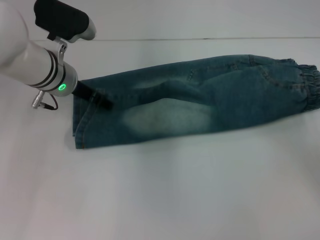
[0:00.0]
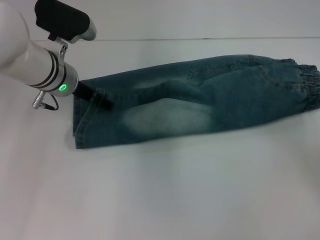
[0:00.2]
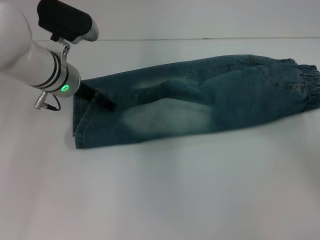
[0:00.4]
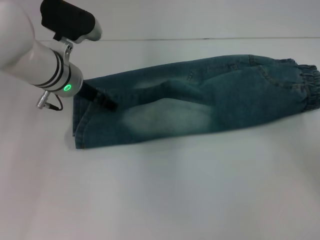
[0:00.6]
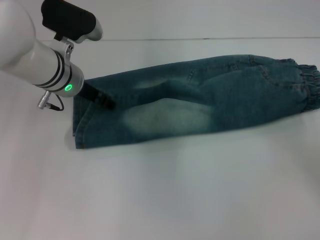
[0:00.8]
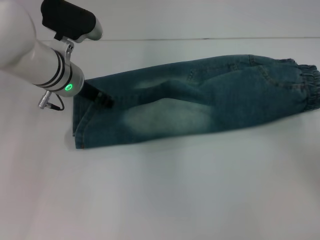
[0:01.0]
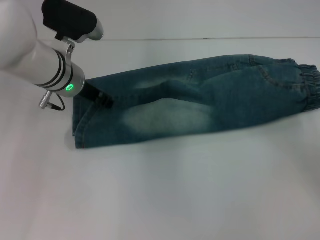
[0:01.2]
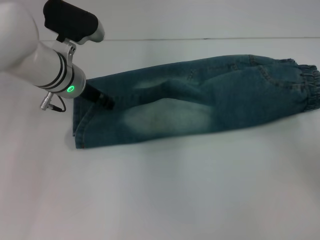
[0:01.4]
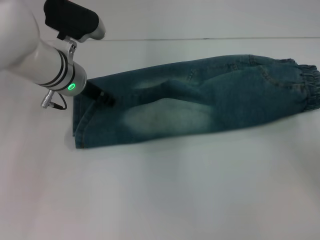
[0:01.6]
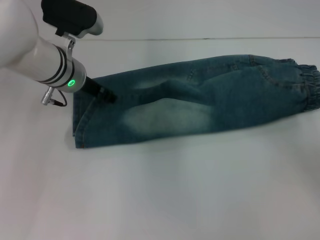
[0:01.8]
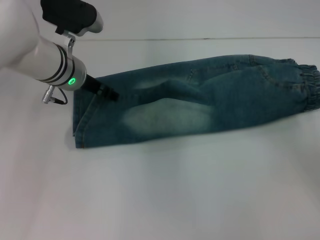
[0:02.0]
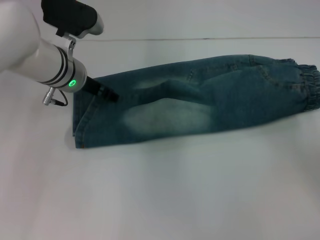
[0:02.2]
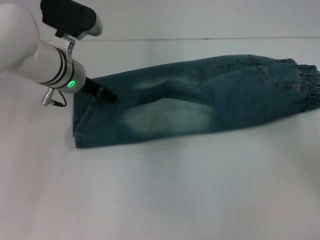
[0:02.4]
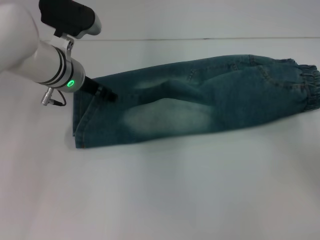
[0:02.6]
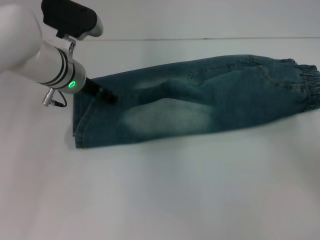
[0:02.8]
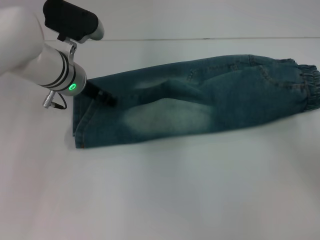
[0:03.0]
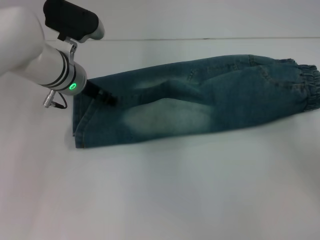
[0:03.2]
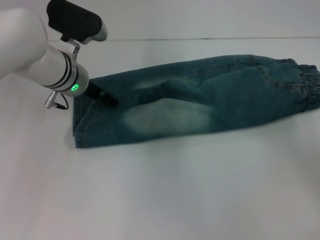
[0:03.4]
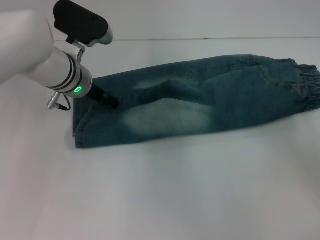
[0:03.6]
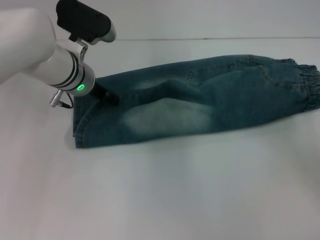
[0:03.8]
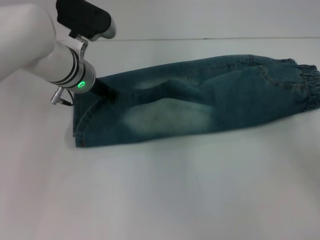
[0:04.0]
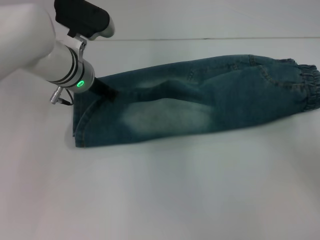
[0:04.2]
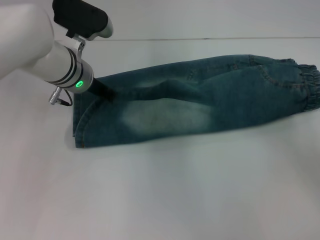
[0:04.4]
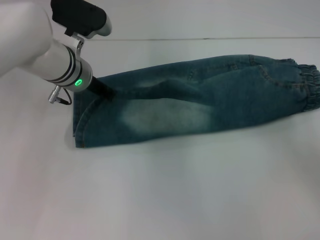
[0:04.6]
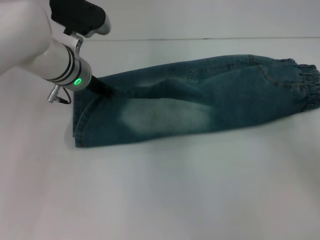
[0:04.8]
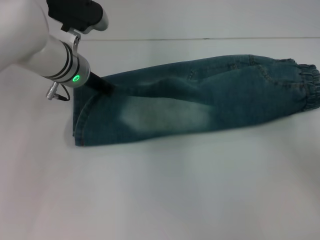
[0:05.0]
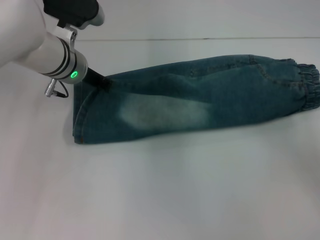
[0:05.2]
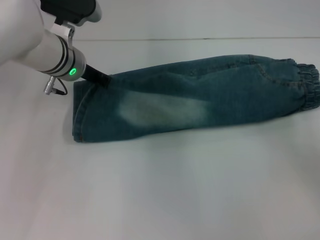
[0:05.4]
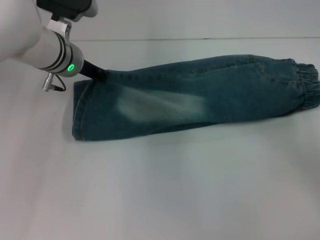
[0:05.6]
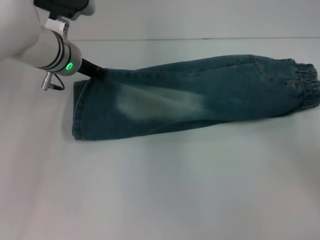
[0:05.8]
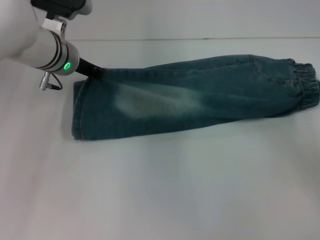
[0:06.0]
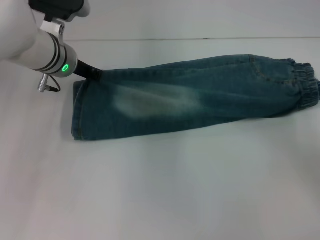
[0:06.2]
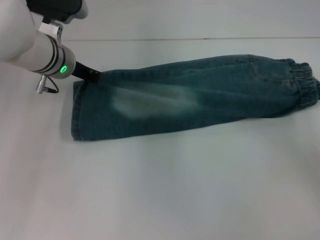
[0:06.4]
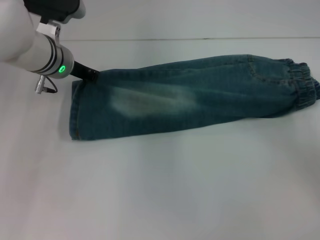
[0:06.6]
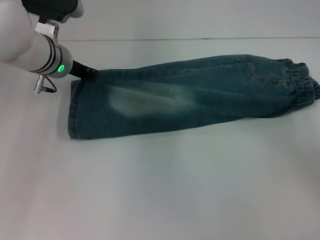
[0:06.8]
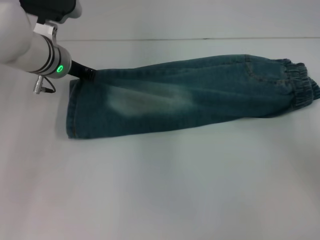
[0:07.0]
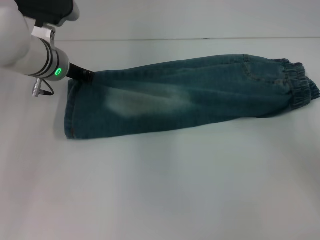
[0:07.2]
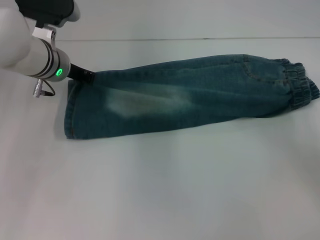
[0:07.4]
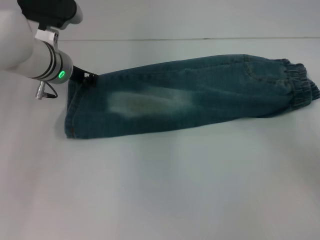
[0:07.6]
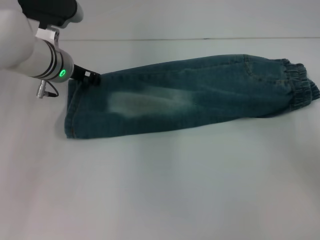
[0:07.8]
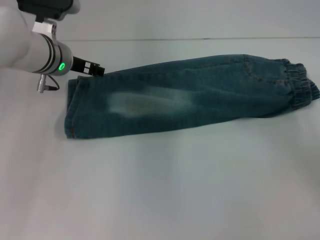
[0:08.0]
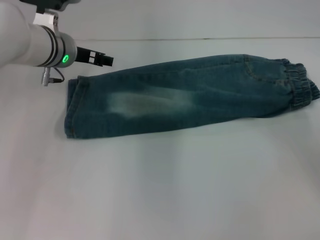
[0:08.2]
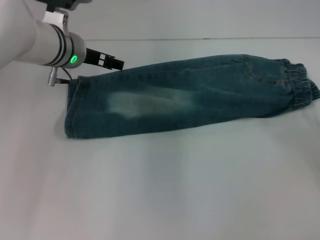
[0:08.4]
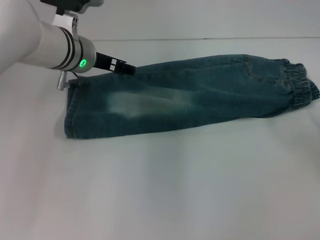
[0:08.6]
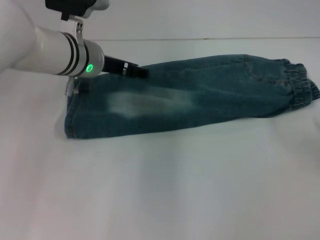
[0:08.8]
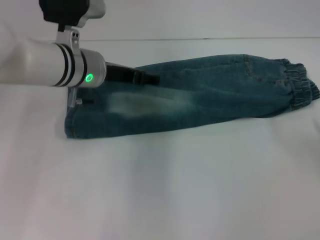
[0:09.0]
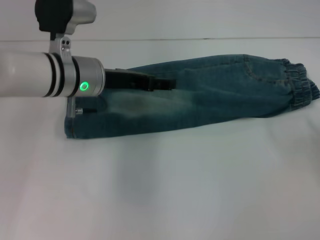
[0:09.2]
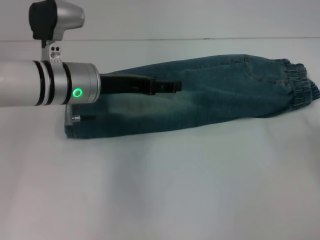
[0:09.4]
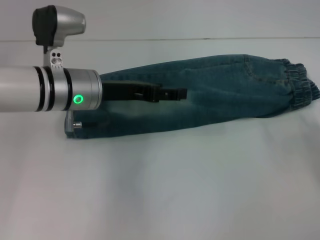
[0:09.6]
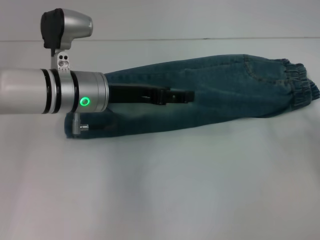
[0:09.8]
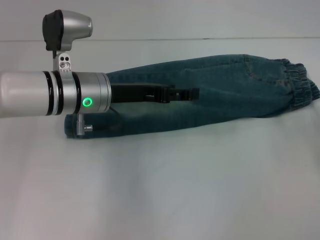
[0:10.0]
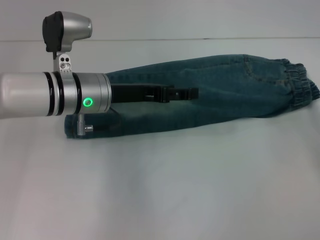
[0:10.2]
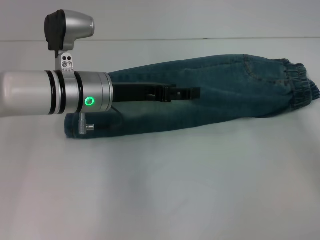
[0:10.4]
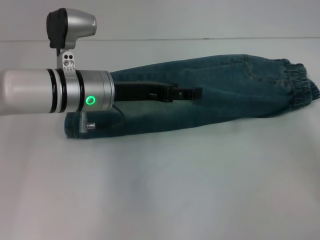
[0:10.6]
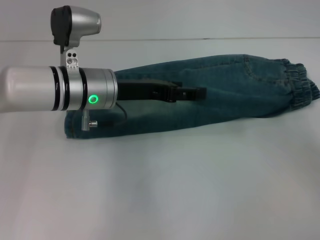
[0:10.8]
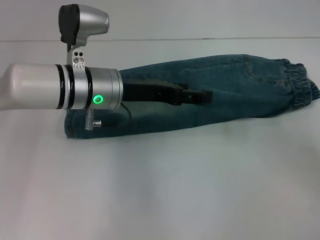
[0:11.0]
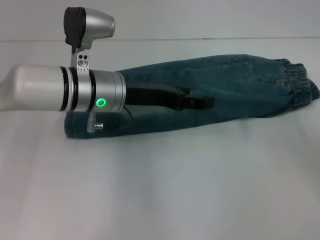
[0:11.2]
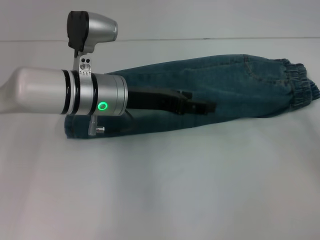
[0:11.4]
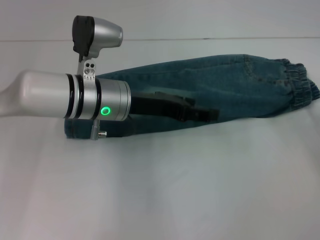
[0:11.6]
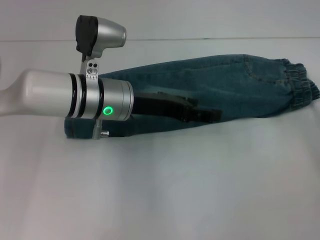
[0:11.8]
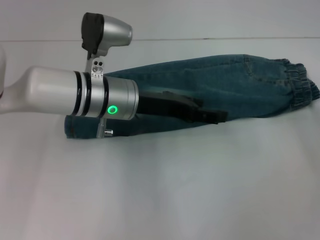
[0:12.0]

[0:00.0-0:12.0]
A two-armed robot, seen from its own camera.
Step, 0:00.0 to 0:07.6: Fold upward with your right hand.
0:00.0 to 0:01.6: The left gripper closes its fingers.
0:01.6 to 0:03.0: The two grippers keep their place.
0:03.0 to 0:04.4: The left gripper closes.
0:04.4 to 0:07.6: The grippers stay close to where they were, moving slightly.
0:07.6 to 0:09.0: The left gripper moves roughly 5 cm, and opens.

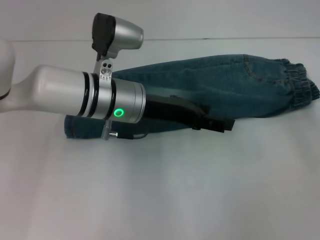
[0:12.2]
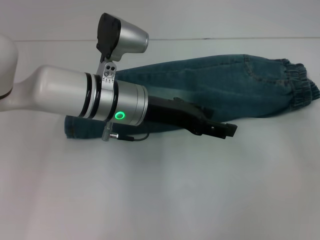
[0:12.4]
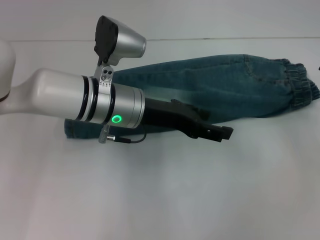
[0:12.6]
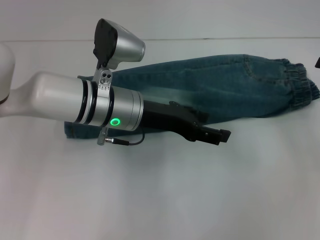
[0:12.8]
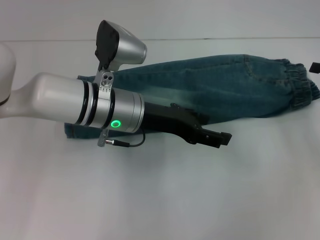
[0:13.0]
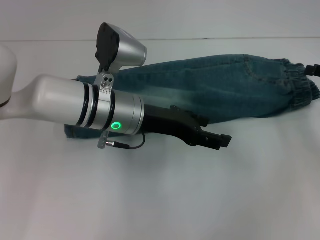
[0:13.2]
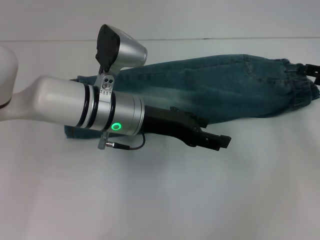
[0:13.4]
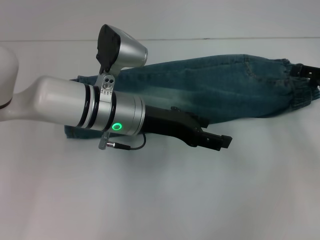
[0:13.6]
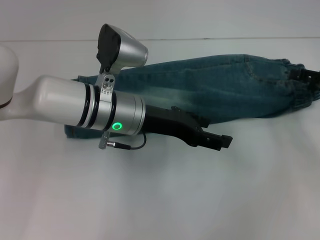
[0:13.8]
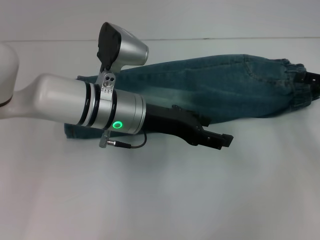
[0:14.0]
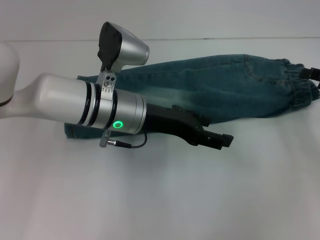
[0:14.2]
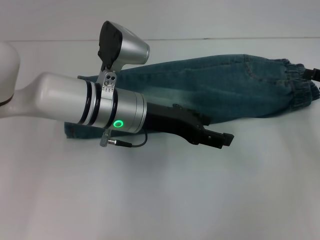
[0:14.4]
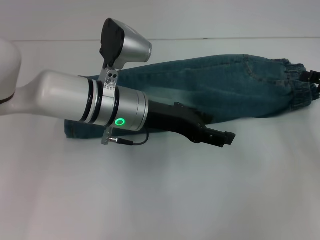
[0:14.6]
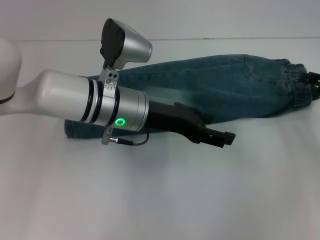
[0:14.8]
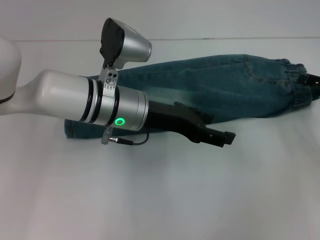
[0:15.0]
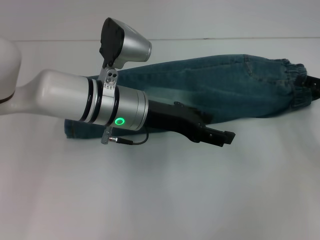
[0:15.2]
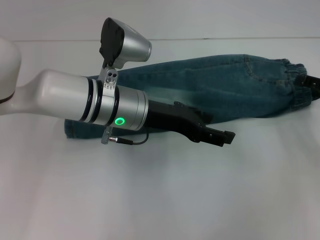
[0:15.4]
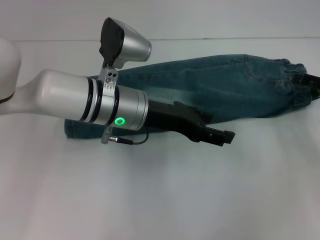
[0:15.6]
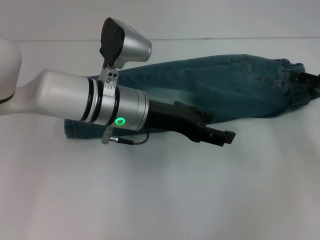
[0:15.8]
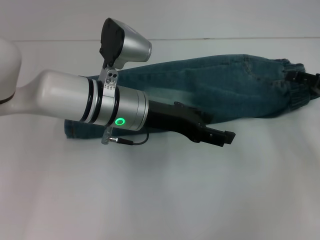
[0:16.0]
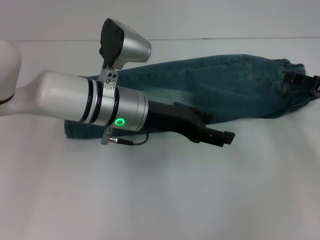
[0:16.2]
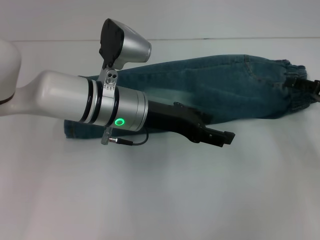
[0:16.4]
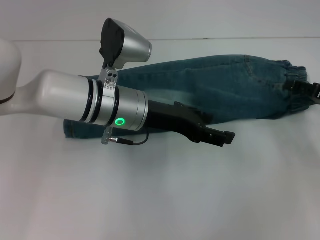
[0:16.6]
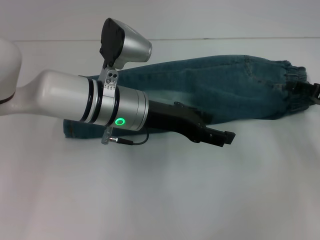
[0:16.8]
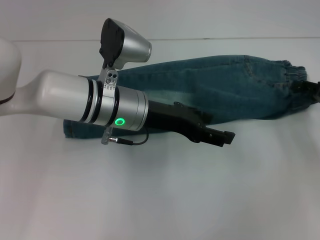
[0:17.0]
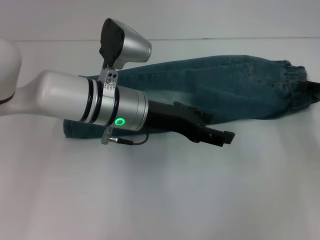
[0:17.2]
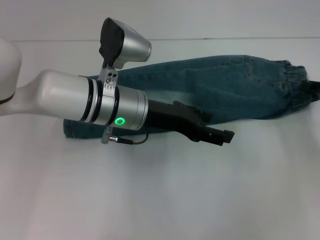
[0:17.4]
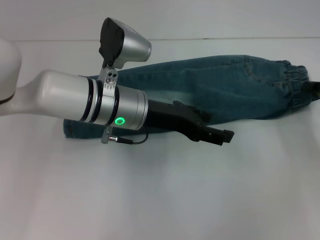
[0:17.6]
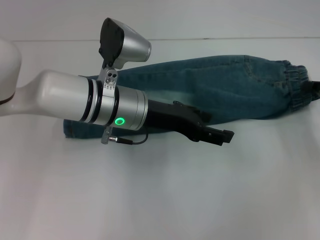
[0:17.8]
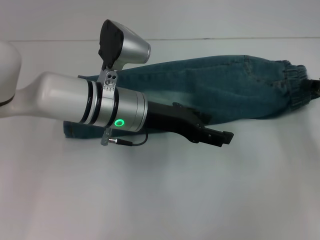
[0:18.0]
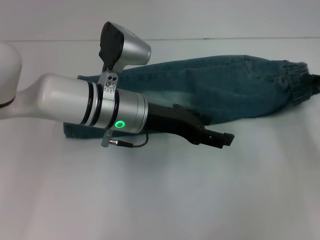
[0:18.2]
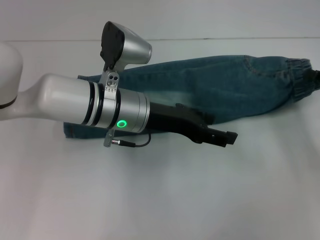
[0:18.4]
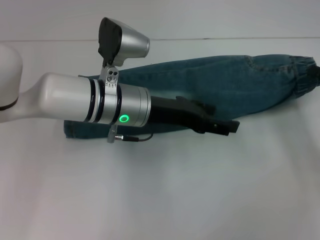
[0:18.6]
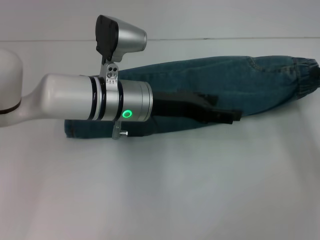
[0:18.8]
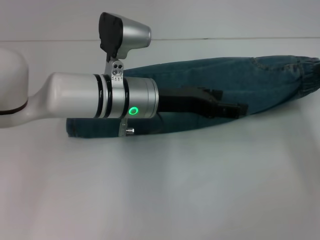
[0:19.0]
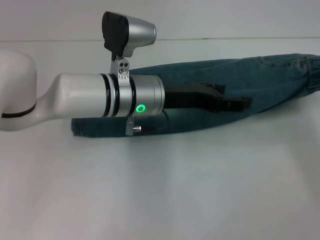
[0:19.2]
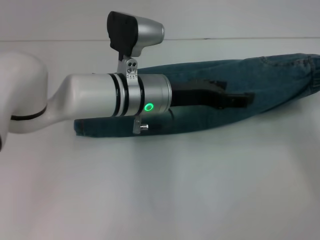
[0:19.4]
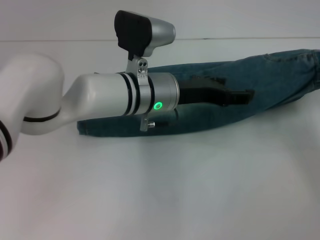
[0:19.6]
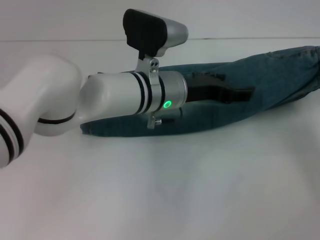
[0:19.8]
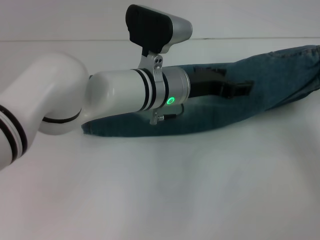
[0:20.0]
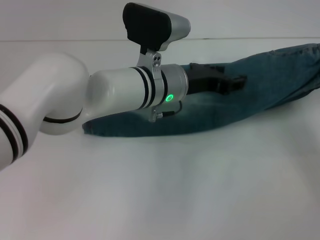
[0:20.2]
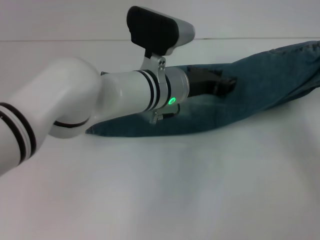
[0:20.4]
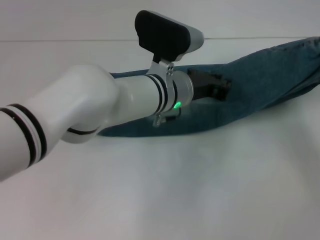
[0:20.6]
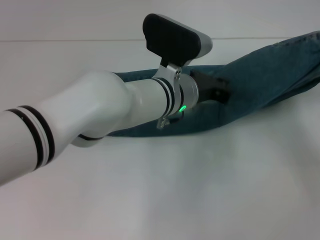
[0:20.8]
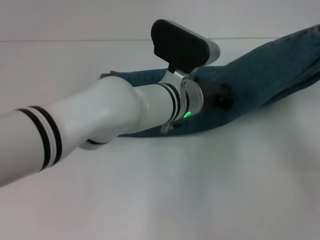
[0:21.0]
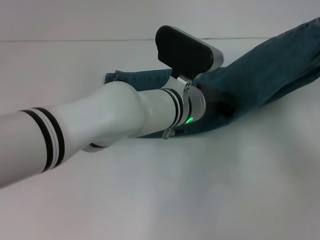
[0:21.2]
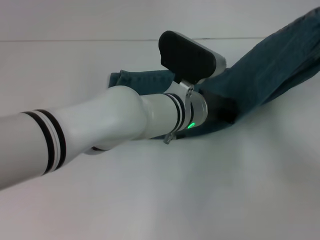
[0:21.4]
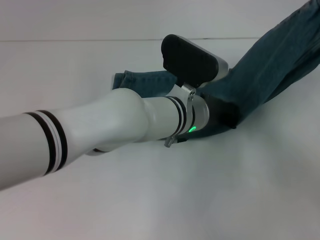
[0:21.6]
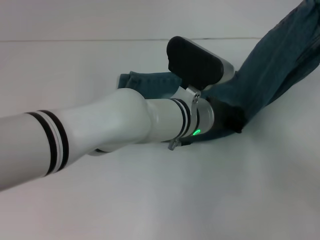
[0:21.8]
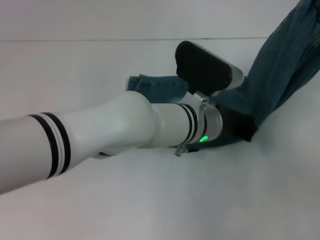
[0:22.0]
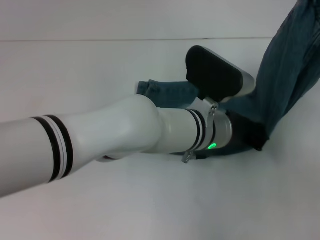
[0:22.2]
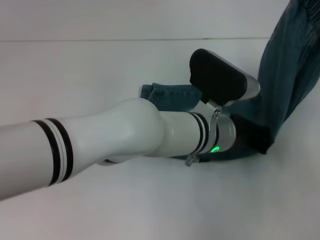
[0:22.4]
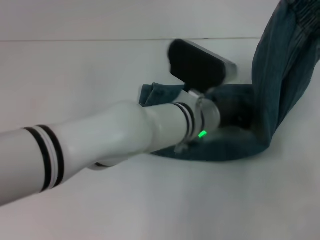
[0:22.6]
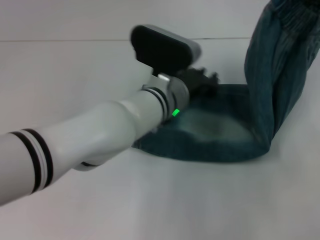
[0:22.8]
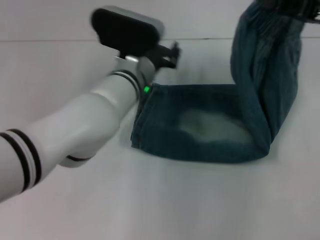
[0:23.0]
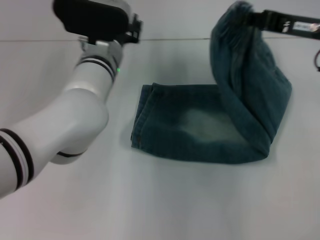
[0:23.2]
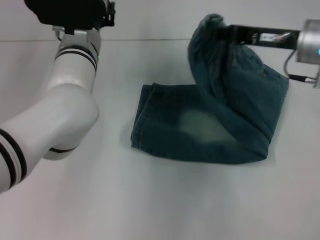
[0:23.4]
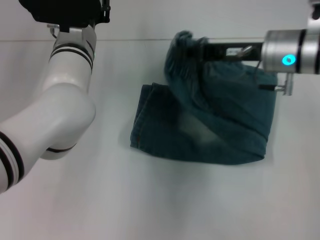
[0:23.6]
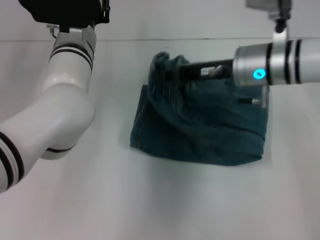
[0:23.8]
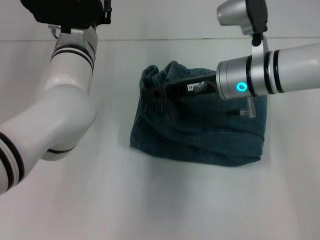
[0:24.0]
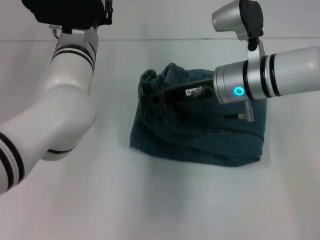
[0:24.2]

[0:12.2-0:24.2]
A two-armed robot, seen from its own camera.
Step, 0:12.2 to 0:17.8: Grab the waistband with your right hand.
Step, 0:18.2 to 0:22.6: Press the middle of the pants with your left hand.
0:12.2 to 0:13.8: The right gripper shifts approximately 5 cm to the left.
0:13.8 to 0:16.6: The grippers move only a little.
0:16.6 to 0:18.2: The right gripper closes its fingers.
0:18.2 to 0:19.8: The left gripper travels to the right by approximately 5 cm. The right gripper moves roughly 5 cm.
0:19.8 to 0:21.2: The right gripper shifts about 5 cm upward; the left gripper closes up.
0:21.2 to 0:22.6: The right gripper is displaced to the left and upward by some 5 cm.
0:22.6 to 0:24.2: The left gripper shifts approximately 15 cm to the left and forward, and opens up. Meanwhile the right gripper goes approximately 25 cm to the left and downward.
